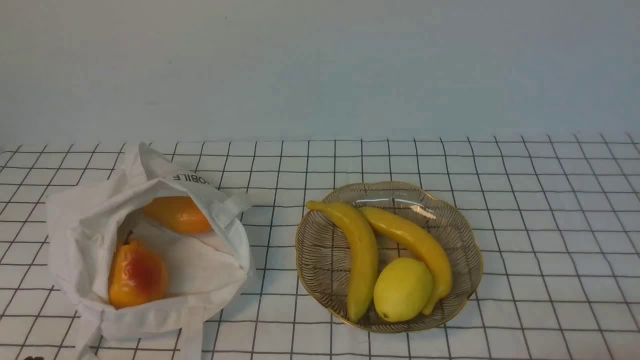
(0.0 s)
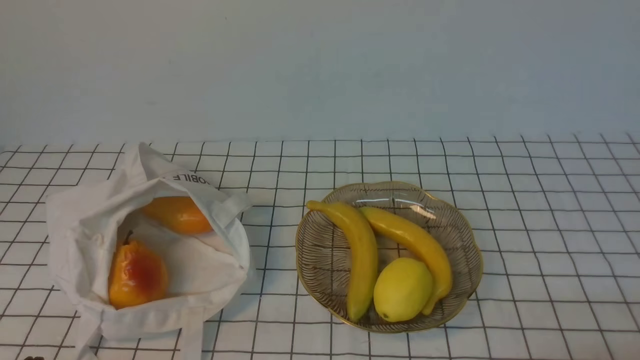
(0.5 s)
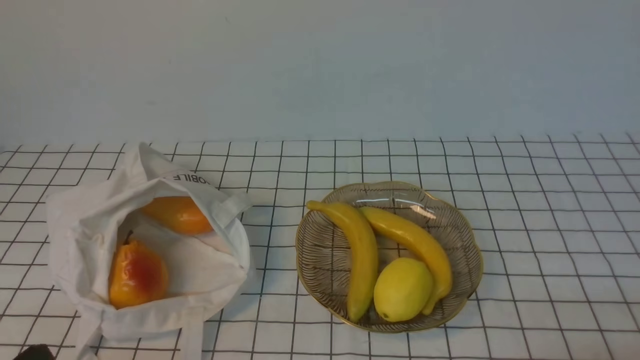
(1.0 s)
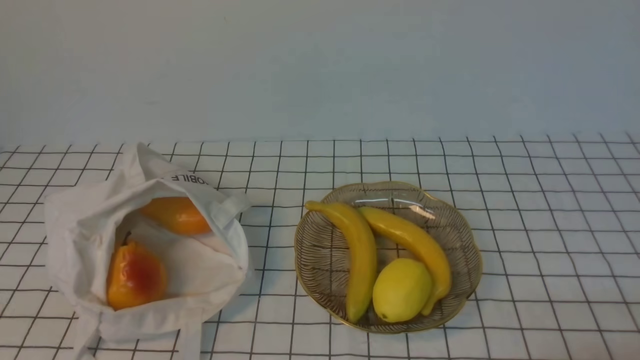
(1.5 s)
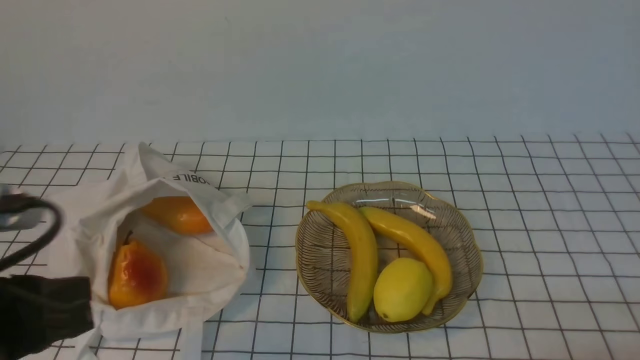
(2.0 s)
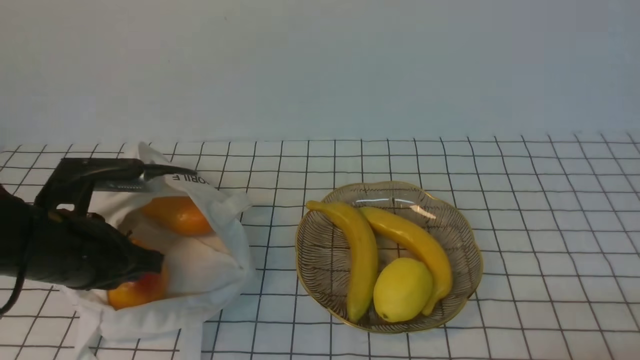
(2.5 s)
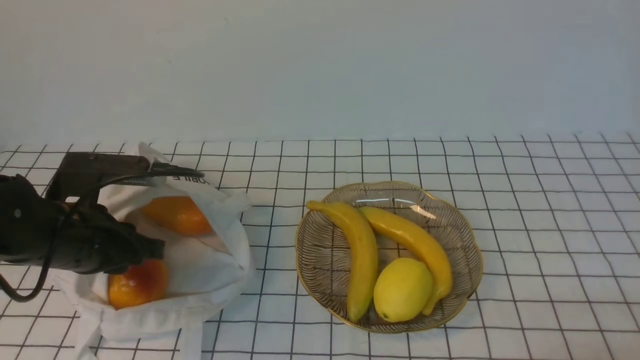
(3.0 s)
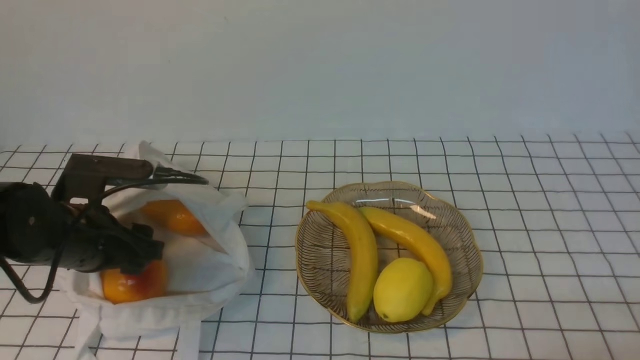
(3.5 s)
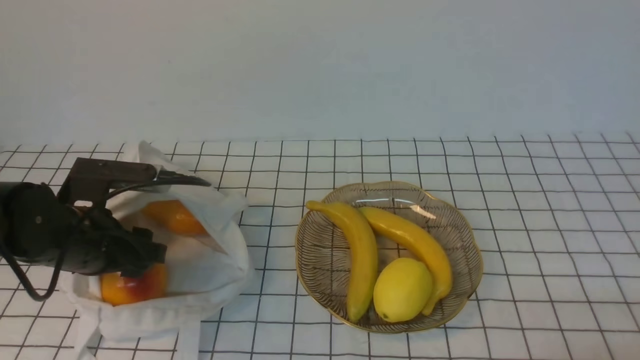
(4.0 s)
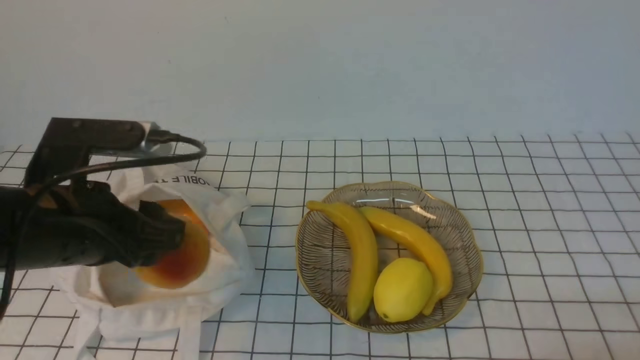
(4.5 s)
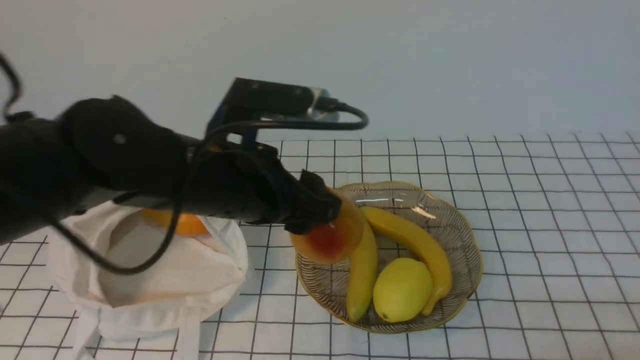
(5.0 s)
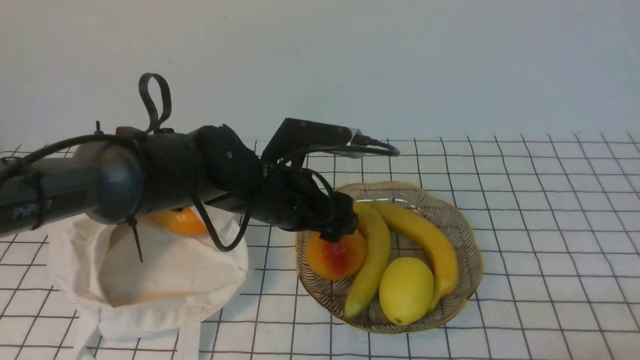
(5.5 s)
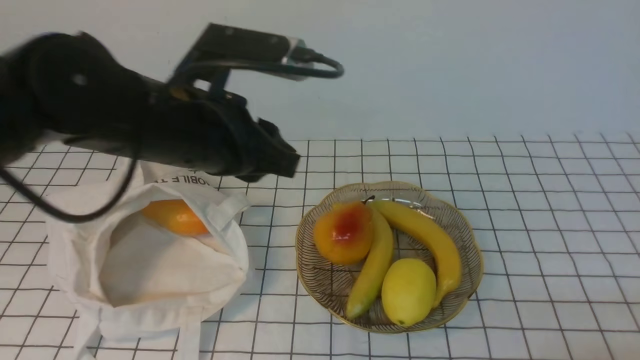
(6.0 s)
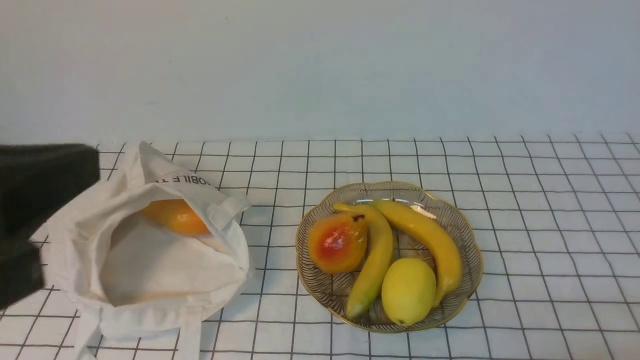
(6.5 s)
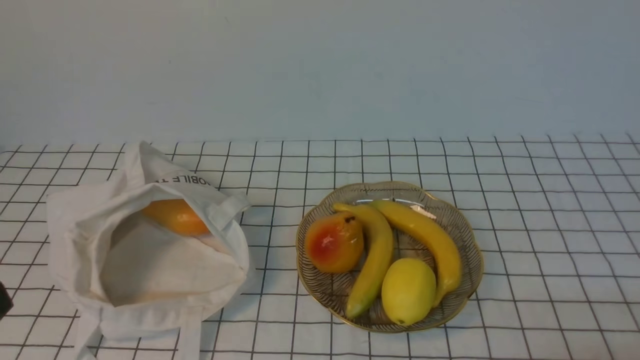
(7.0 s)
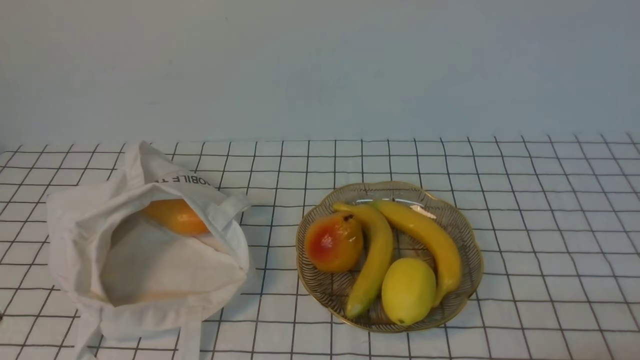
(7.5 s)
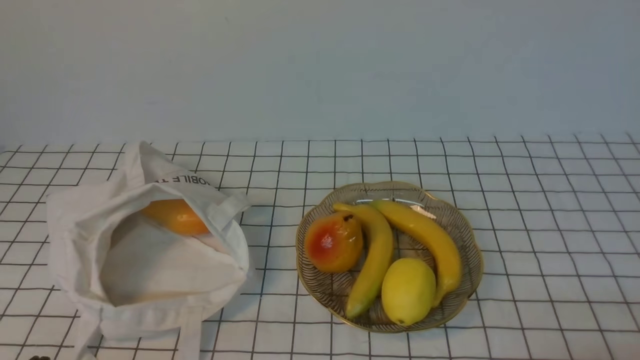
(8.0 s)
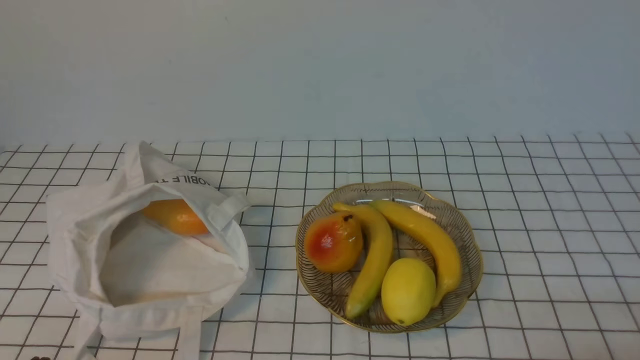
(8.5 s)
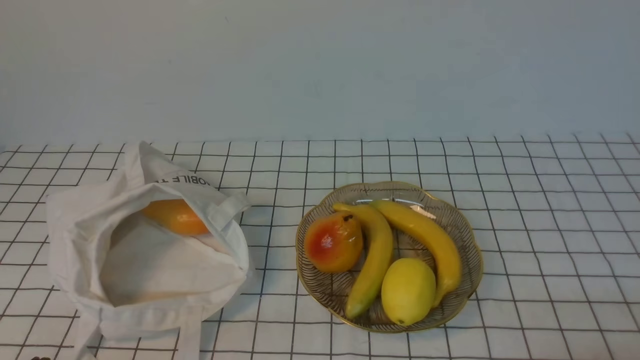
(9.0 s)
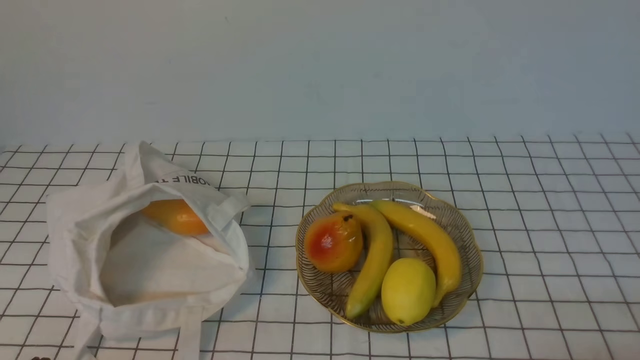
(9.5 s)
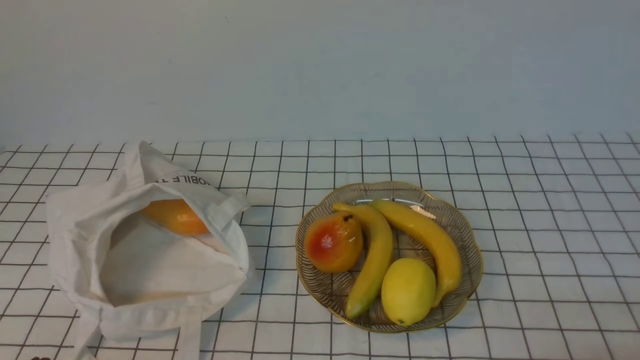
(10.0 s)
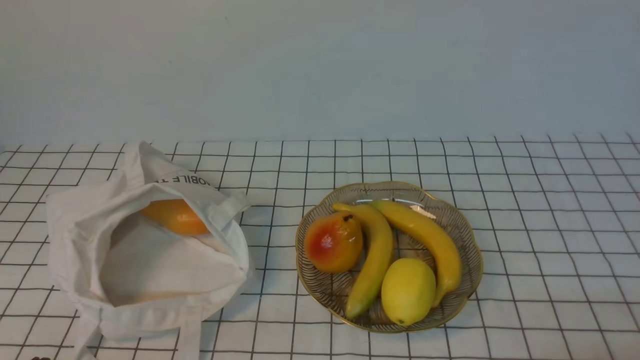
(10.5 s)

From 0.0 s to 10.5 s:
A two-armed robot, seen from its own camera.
Step, from 0.0 s to 4.0 s: use the left arm to grab a pear from the bag.
Step, from 4.5 s to 5.5 s: use the left arm to put the pear into the empty plate on the right.
From 0.0 s to 2.0 s: The left gripper goes some 15 cm upward and forward.
From 2.0 s to 4.0 s: The left gripper heads forward and downward, covering about 15 cm, and opens its fingers.
From 4.0 s to 6.5 s: The left gripper swings forward and backward, roughly 25 cm each way, with 2 reversals, and closes its fingers.
From 6.5 s to 8.5 s: The left gripper moves downward, roughly 20 cm.
From 8.5 s to 10.5 s: Both grippers stay about where they are.
